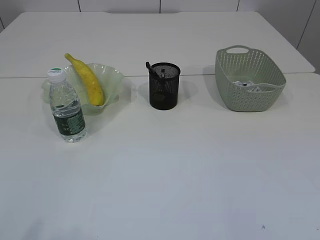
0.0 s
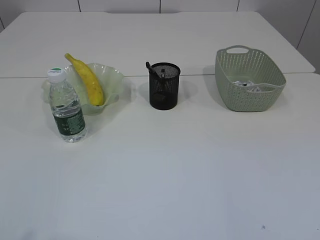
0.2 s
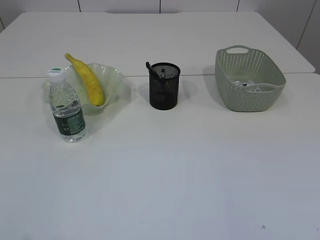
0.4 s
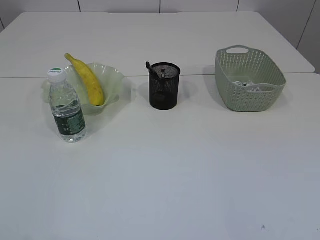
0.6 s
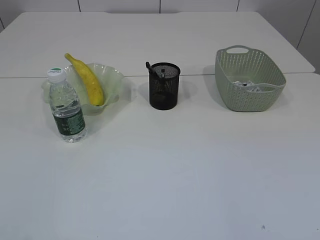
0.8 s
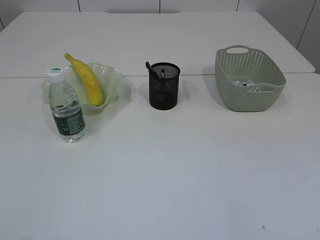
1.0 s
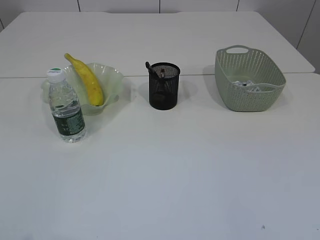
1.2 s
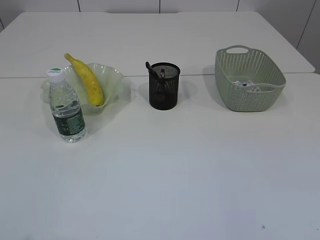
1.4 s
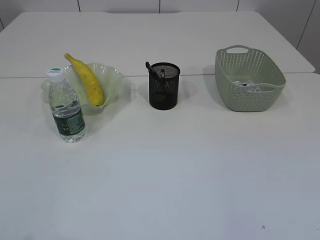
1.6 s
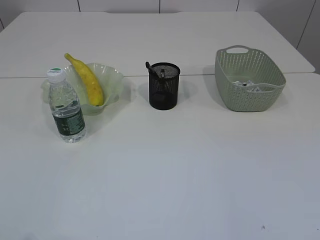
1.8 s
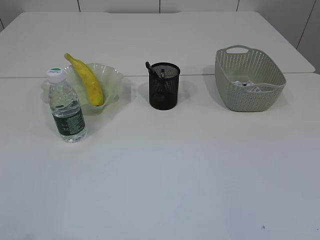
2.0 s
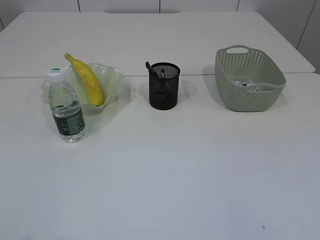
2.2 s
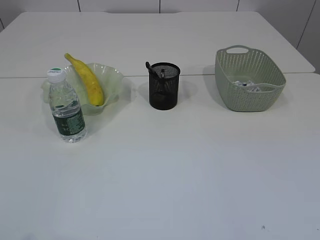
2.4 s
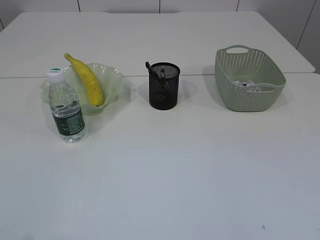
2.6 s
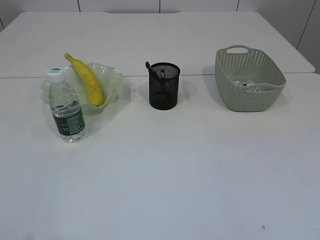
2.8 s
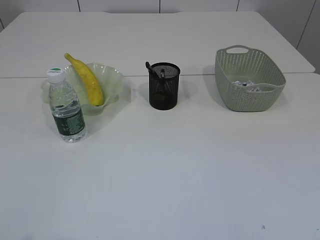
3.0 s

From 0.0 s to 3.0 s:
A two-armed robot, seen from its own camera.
From 1.6 s to 3.0 s: Both grippers stay about where they are.

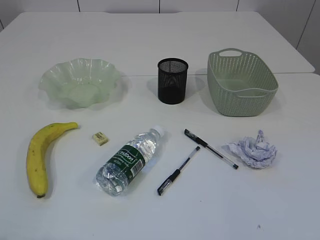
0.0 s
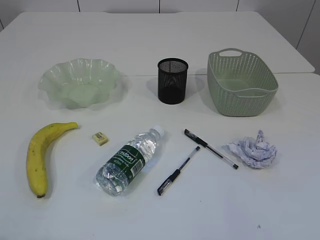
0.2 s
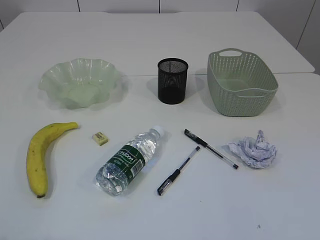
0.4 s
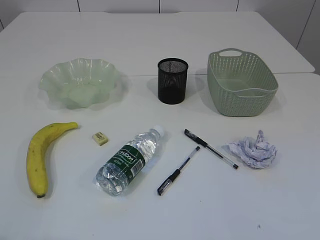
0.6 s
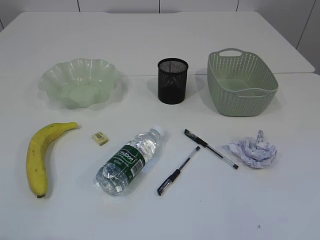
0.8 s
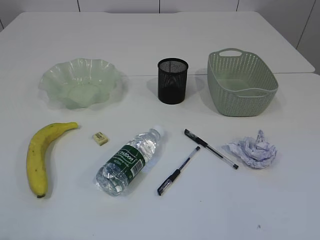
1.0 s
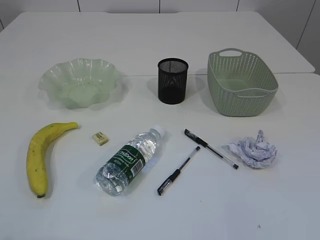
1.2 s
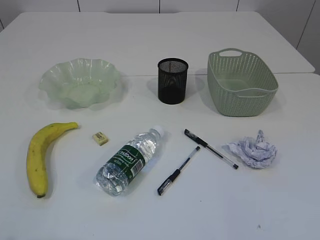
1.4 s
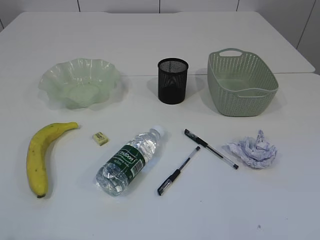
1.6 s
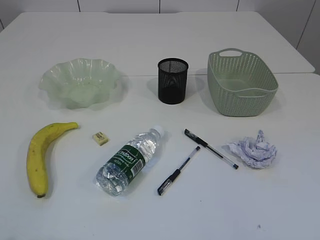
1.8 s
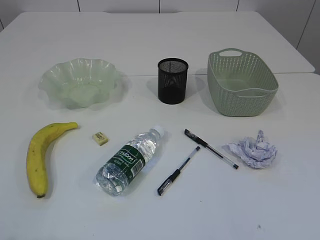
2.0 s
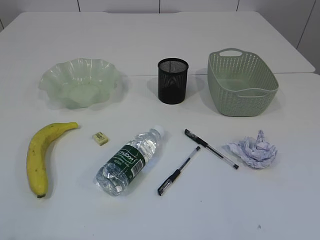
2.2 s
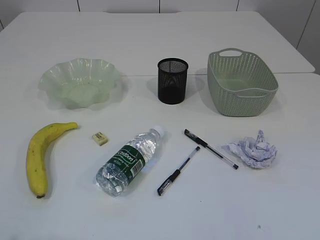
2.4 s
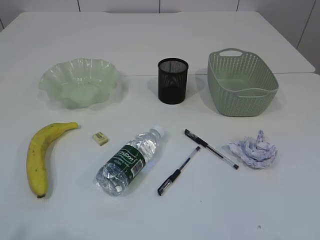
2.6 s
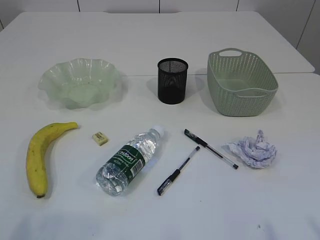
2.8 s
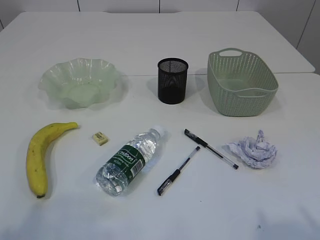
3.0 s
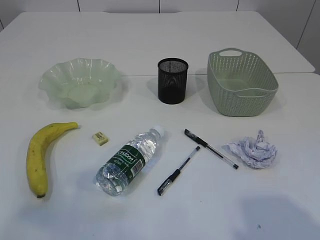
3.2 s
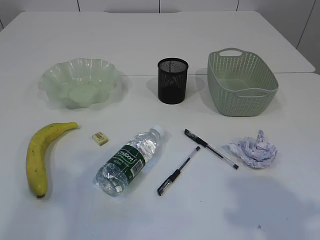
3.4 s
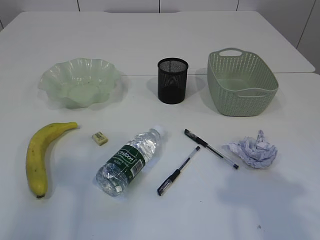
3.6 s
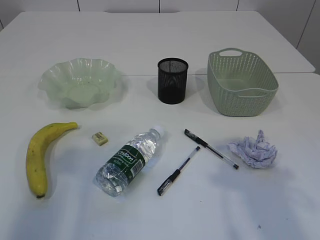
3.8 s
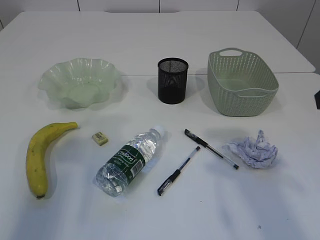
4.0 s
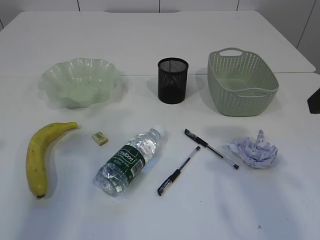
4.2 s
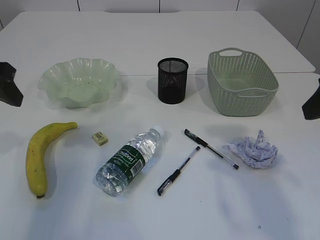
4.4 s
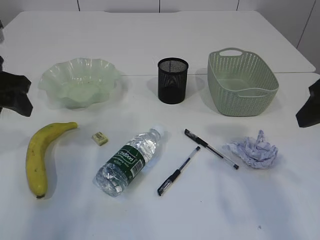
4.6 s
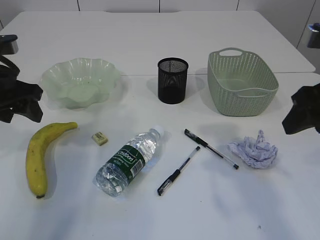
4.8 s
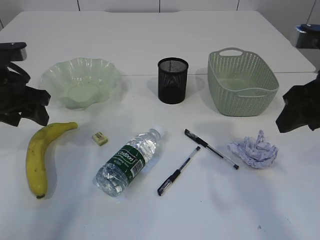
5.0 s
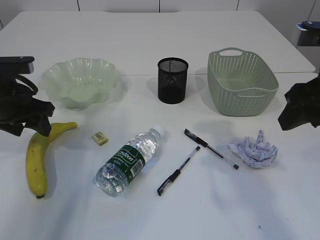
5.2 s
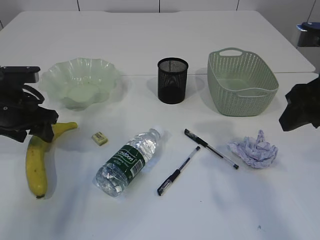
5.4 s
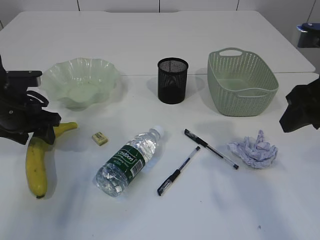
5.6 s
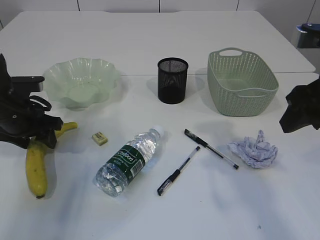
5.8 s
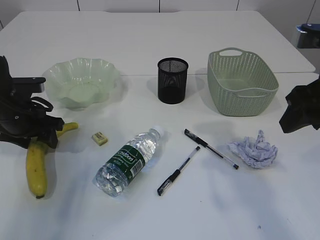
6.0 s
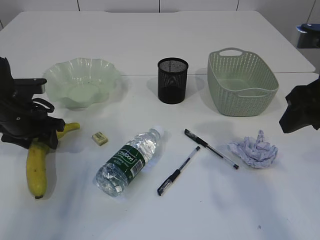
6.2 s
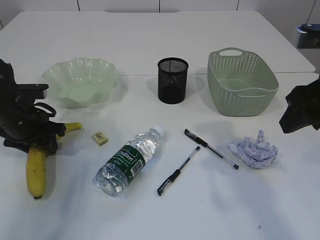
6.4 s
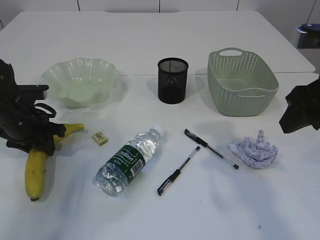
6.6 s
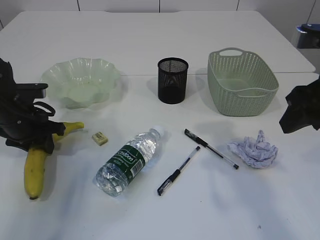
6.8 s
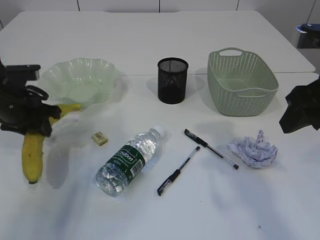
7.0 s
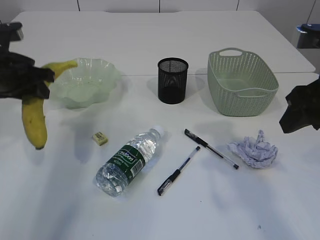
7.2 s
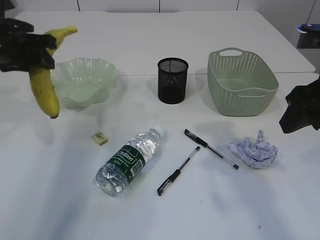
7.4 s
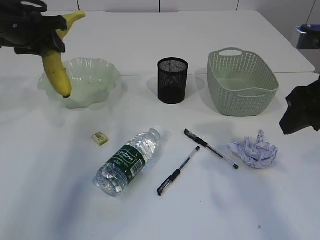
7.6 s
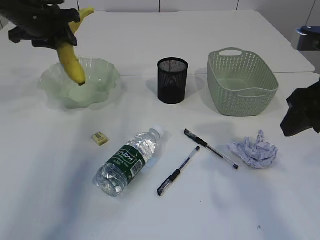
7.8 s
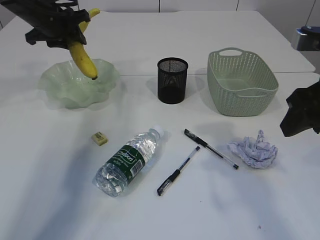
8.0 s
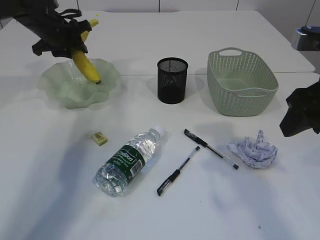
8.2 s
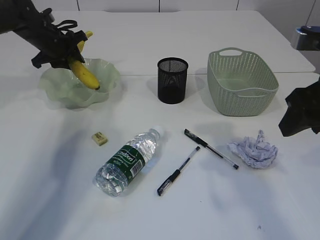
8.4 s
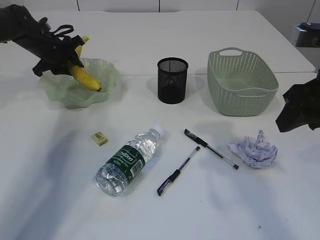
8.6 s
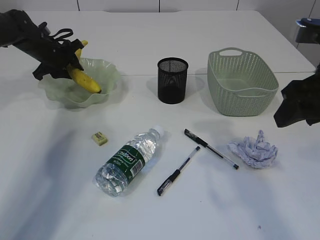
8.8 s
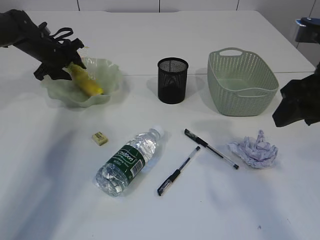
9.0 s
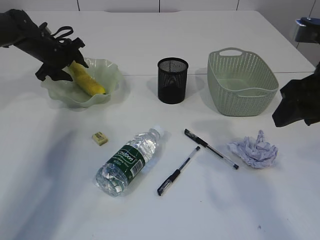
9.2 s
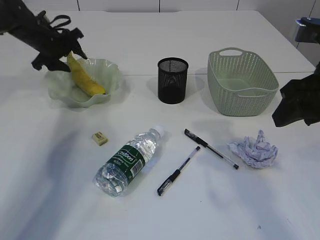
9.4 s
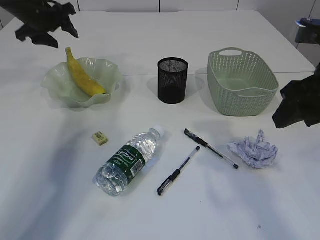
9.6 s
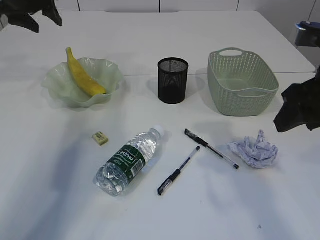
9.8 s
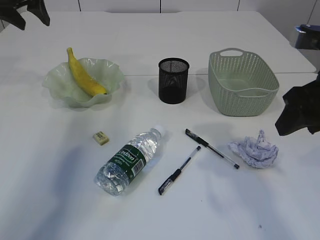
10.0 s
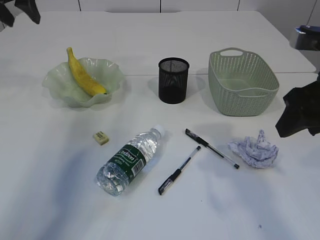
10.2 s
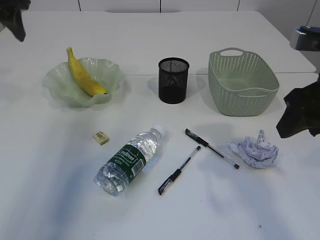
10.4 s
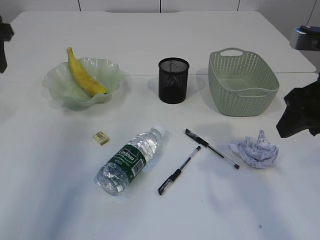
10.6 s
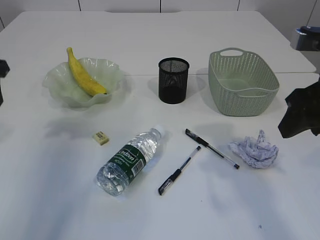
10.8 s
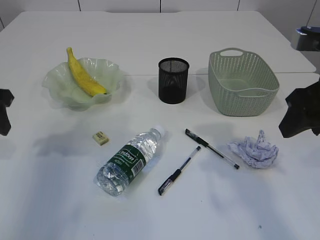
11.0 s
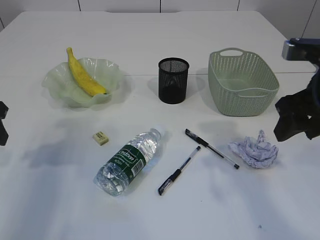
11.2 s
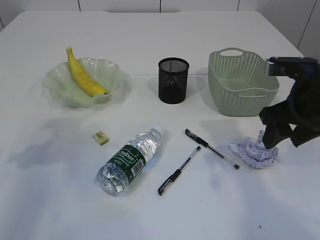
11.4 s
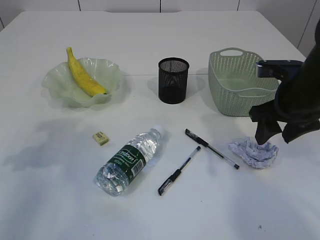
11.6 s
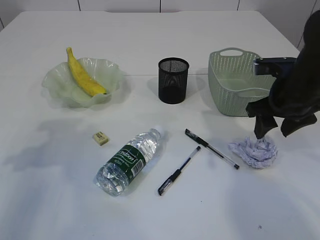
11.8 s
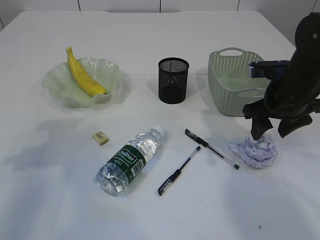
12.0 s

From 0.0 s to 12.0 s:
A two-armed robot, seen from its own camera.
Step, from 7.2 s to 9.8 s: Place the banana in the plate.
From 3.0 s to 4.4 s: The grippers both shift forward by some 20 cm.
From 4.4 s to 6.0 s: The left gripper is displaced downward and forward by approximately 15 cm.
From 6.0 s to 7.6 s: The left gripper travels upward and forward by roughly 15 cm, and closes its fingers.
From 7.6 s to 9.0 s: The left gripper goes some 20 cm forward and downward, and opens.
From 9.0 s to 10.4 s: The left gripper shifts roughly 25 cm upward and backward.
From 10.4 s to 12.0 s: The right gripper heads forward and downward, covering roughly 15 cm. Meanwhile the left gripper is displaced backward and downward by approximately 20 cm.

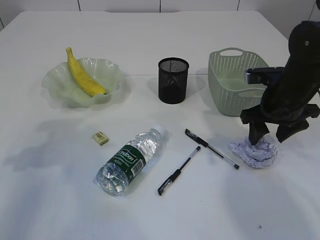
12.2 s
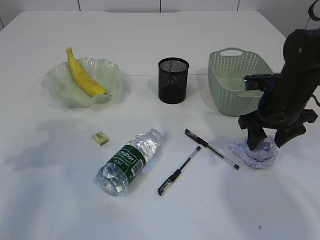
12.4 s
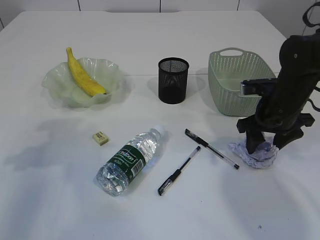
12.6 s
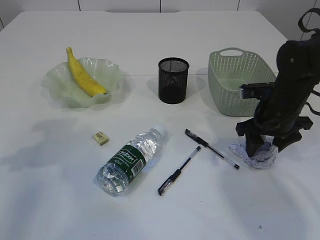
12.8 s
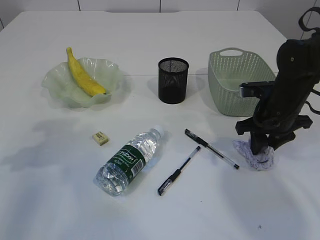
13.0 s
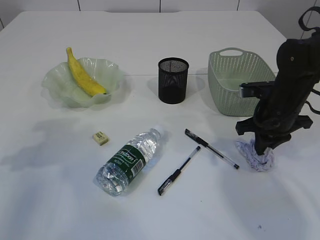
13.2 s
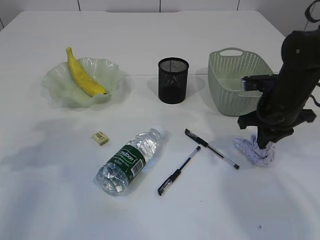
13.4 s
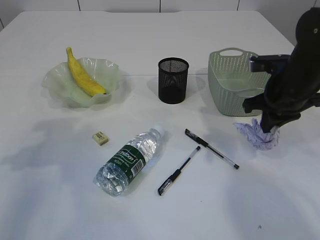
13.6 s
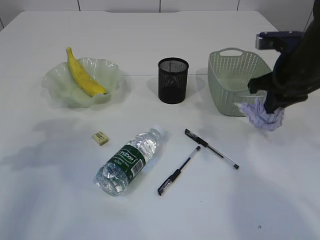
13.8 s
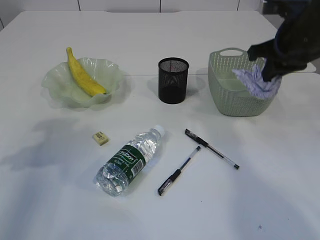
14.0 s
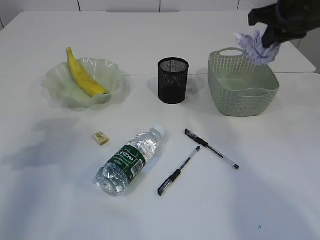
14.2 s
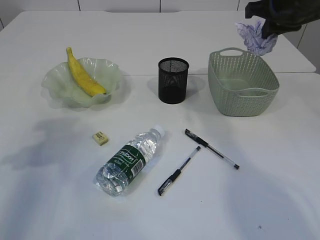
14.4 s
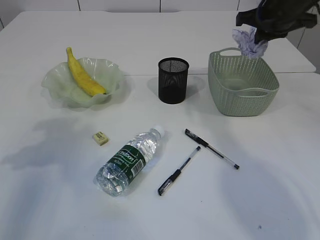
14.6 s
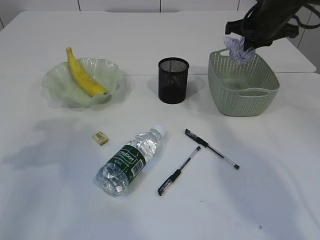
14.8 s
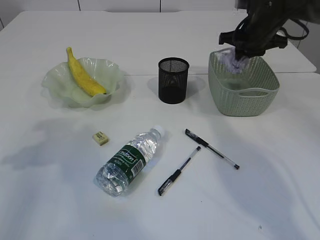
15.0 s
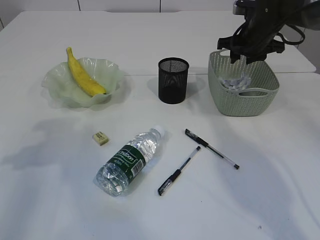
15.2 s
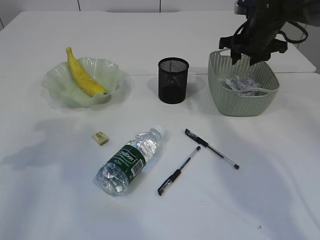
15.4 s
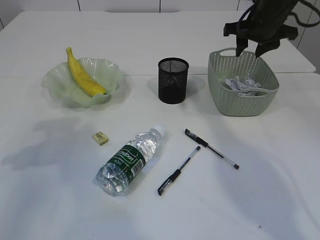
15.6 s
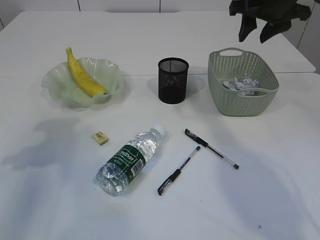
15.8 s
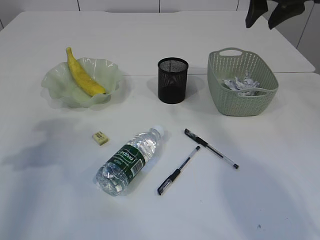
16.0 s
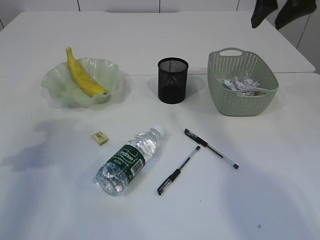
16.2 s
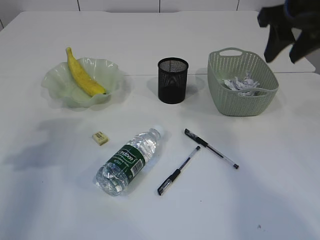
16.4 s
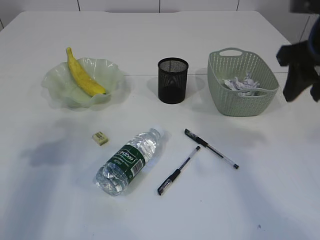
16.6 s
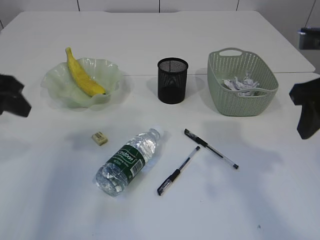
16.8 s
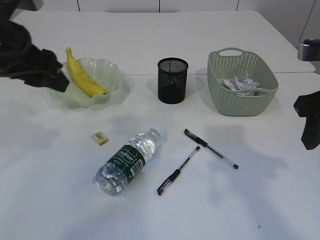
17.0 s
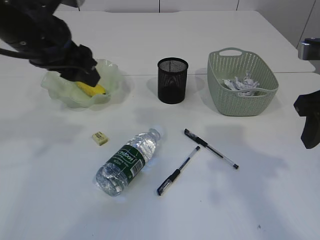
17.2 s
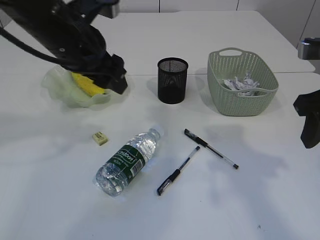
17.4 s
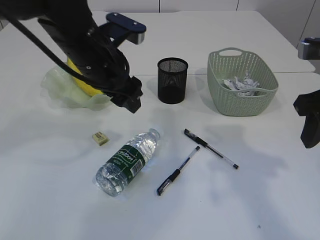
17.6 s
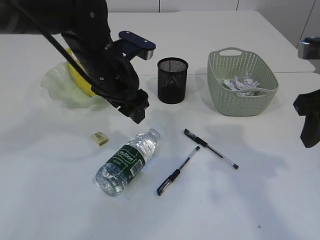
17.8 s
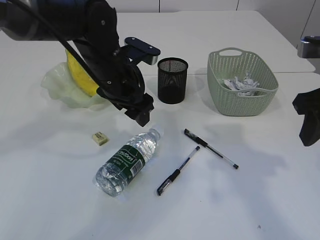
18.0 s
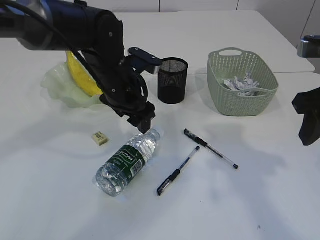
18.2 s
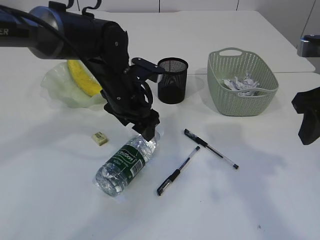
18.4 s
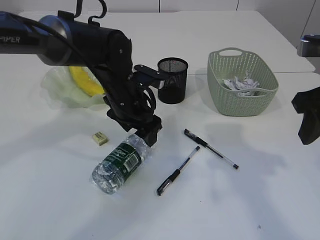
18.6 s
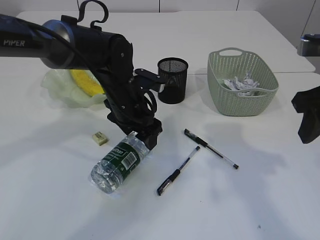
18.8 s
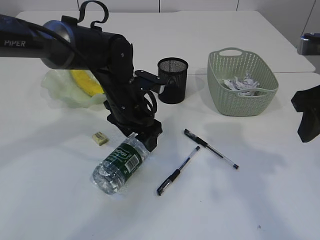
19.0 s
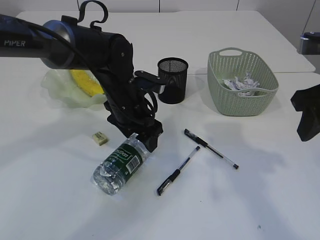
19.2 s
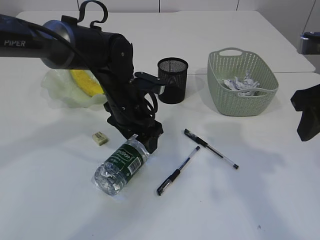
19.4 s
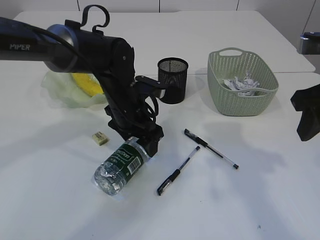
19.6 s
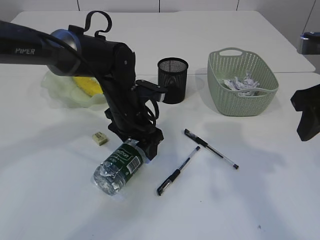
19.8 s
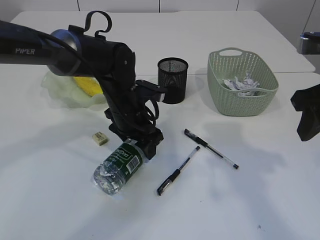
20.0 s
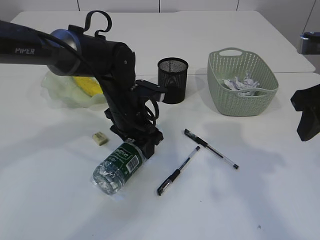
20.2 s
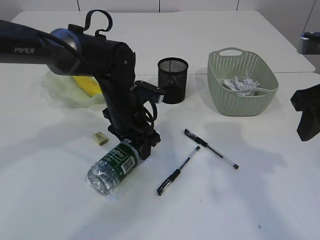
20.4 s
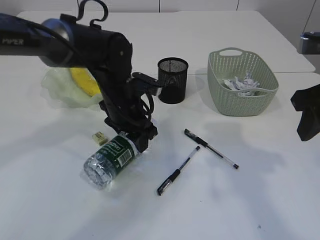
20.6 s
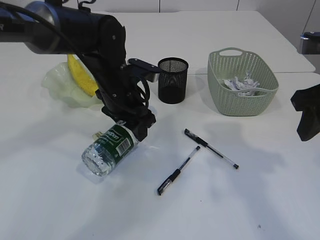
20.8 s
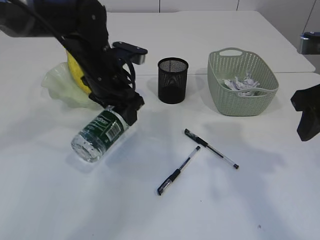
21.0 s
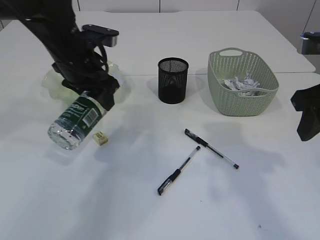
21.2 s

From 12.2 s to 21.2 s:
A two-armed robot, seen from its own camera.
Step, from 13.8 s to 15.6 s: Place the waste paper in the basket.
Step, from 15.8 s to 20.8 s: Pick up the bottle with the left arm.
From 12.2 s to 13.8 s: The right gripper is displaced upward by some 5 cm, and closes.
From 13.8 s to 15.2 s: The right gripper moves forward, approximately 15 cm, and opens up.
From 15.2 s to 16.6 s: The right gripper heads backward and upward, covering roughly 25 cm.
From 16.6 s to 18.2 s: The left gripper is displaced to the right and forward by approximately 25 cm, and opens, while the right gripper moves roughly 5 cm.
From 18.2 s to 19.8 s: The left gripper goes about 5 cm downward.
From 19.8 s to 21.2 s: The left gripper is displaced upward and to the left by approximately 15 cm, and closes.
